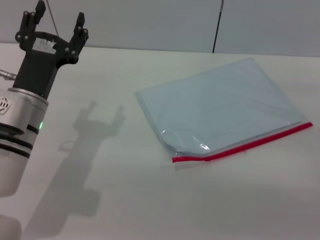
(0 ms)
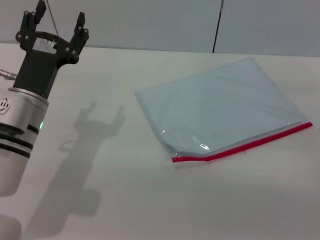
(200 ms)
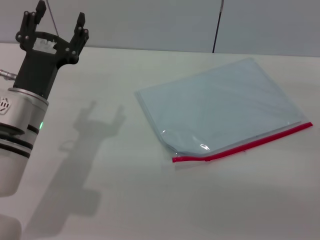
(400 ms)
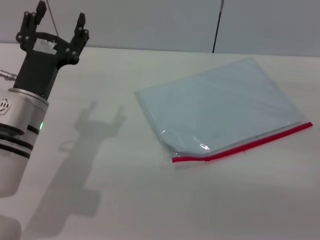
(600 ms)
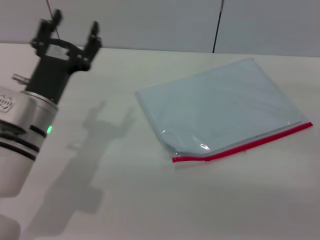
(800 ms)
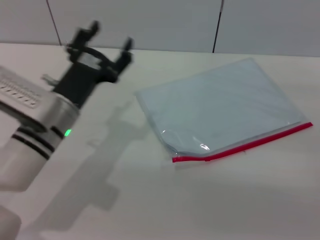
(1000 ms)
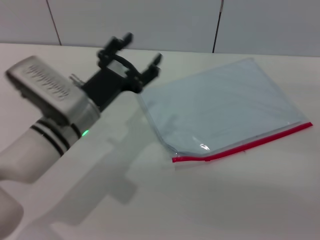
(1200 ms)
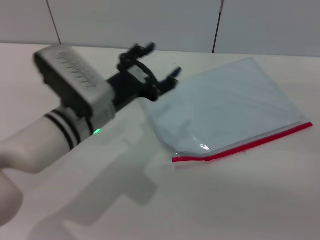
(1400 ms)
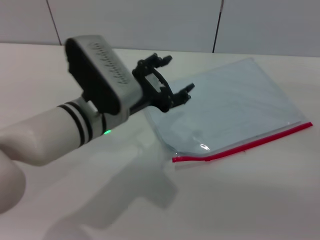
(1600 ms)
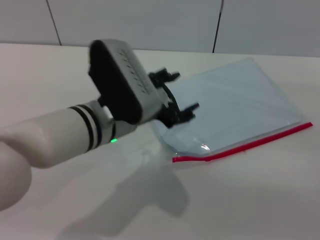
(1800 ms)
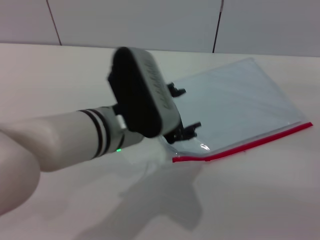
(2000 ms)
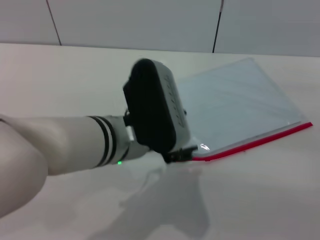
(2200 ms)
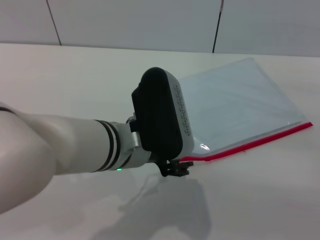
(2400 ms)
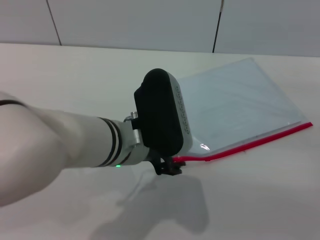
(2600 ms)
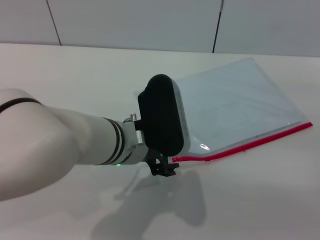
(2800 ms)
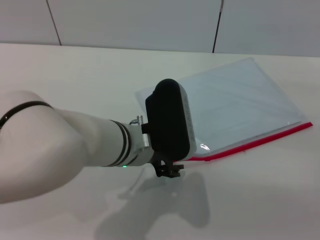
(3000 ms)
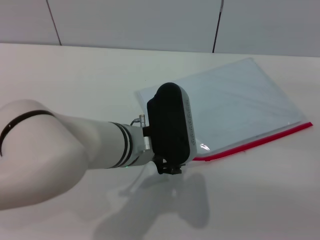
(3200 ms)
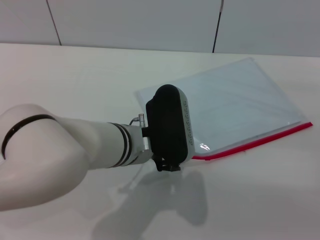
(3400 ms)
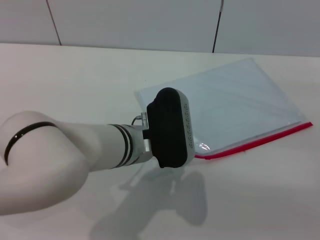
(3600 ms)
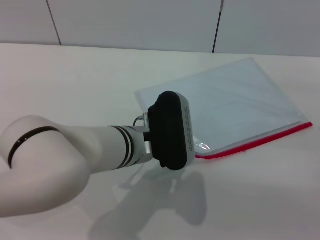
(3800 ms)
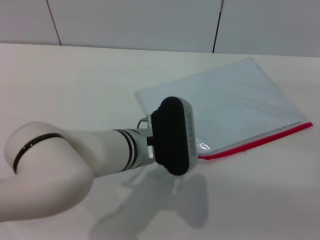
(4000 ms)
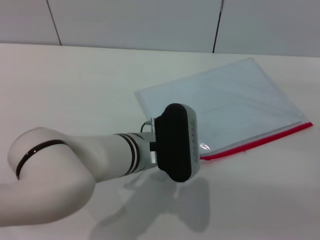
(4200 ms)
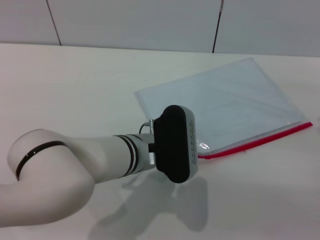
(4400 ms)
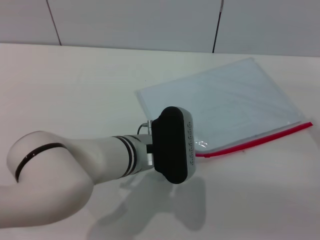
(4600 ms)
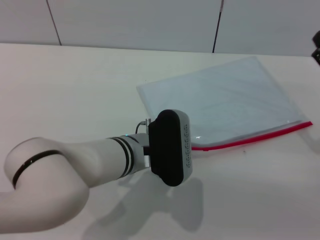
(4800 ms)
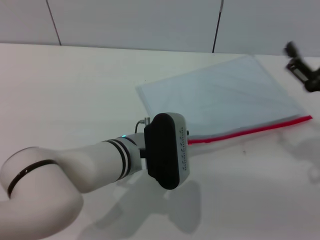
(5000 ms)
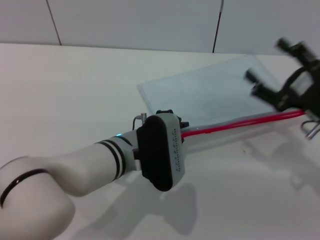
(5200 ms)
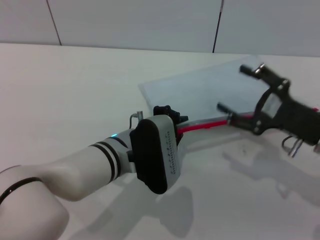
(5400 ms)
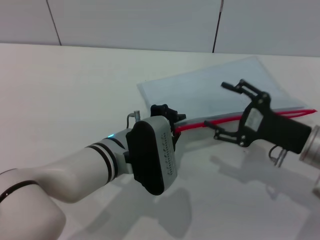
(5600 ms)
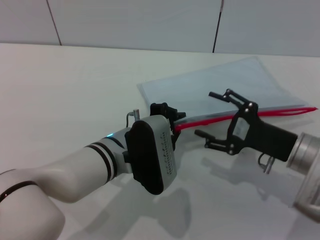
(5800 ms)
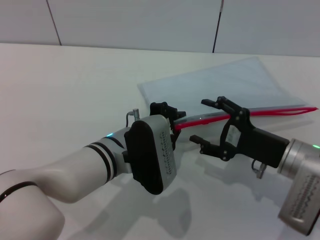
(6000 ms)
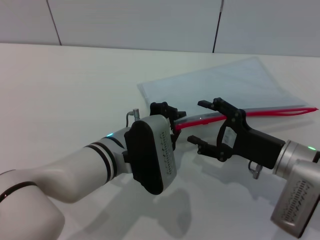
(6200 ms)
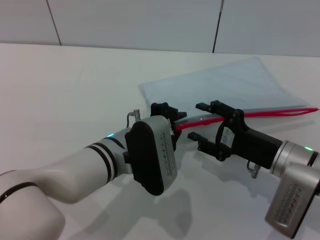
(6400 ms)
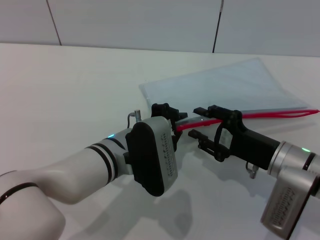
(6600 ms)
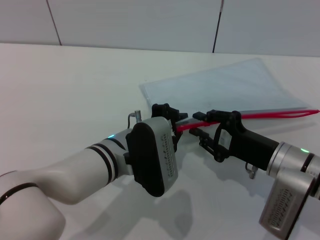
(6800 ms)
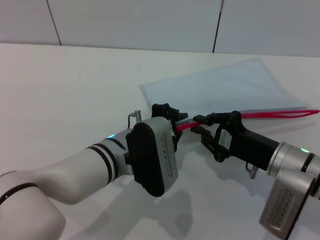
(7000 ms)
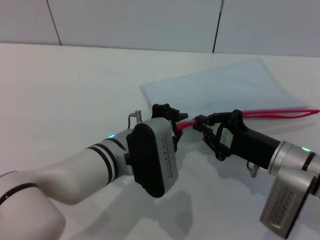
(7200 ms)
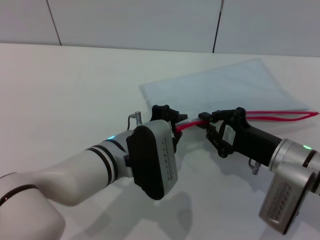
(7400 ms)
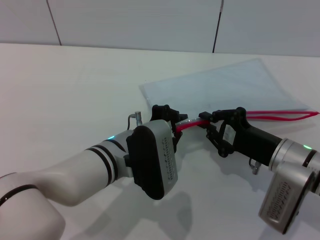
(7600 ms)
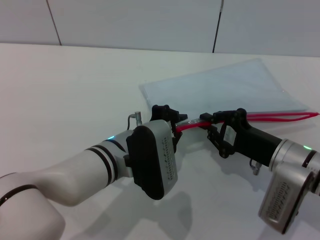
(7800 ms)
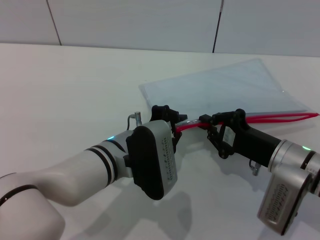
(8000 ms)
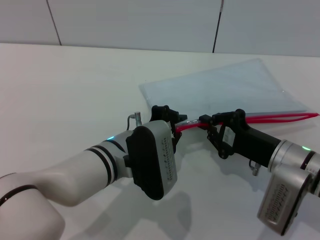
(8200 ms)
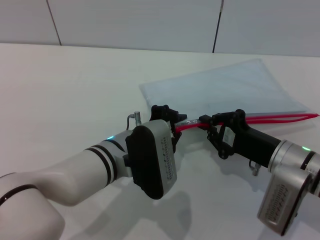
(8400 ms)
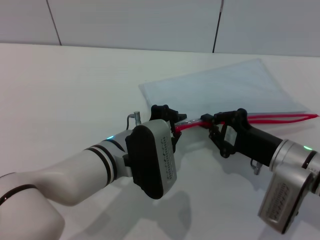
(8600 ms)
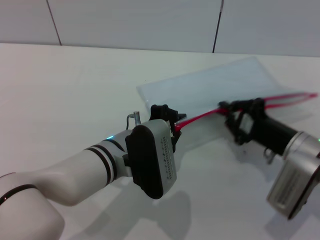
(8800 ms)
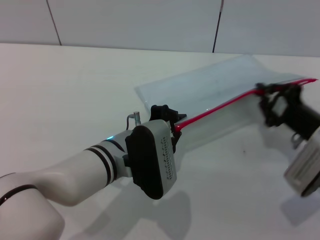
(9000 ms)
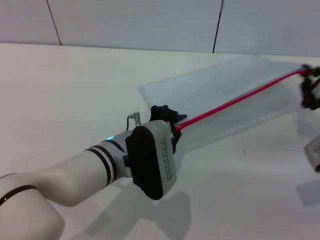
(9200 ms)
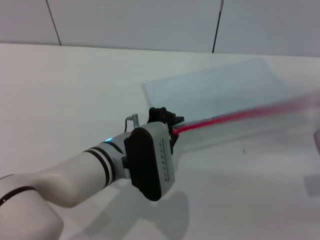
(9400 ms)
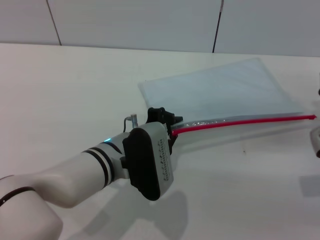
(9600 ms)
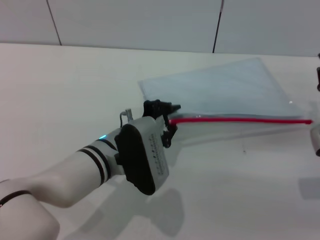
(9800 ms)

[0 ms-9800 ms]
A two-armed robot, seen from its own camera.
Step, 0 ms to 5400 ms: Pick up the transparent plastic bag with the left gripper.
Step, 5600 ms to 9800 ms: Pulling up the zipper on the transparent plastic bag with the right gripper to close it.
0 ms to 1400 ms: The left gripper moves to the right, some 5 cm.
1400 ms to 2800 ms: The left gripper shifts approximately 5 cm to the right.
2800 ms to 4200 ms: The grippers stay close to where they were, moving slightly.
4200 ms to 5600 ms: The left gripper closes its fingers. Meanwhile the right gripper moves to the left, approximately 10 cm.
5600 ms to 7000 ms: The right gripper ends up about 5 cm from where it was, and closes its fingers.
7000 ms to 8400 ms: The right gripper closes up.
8400 ms to 9800 ms: The right gripper travels to the right by some 10 cm.

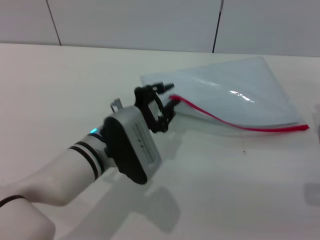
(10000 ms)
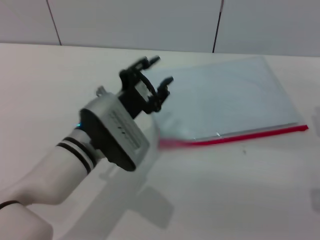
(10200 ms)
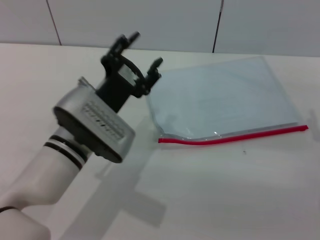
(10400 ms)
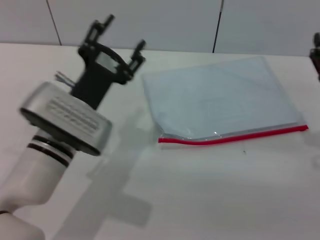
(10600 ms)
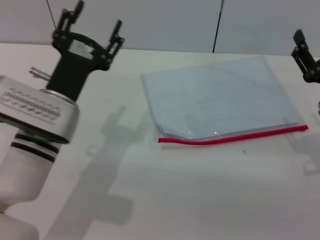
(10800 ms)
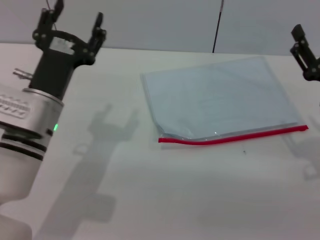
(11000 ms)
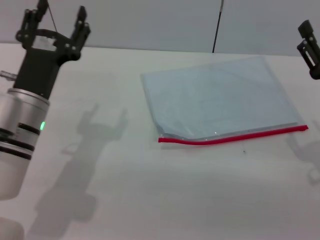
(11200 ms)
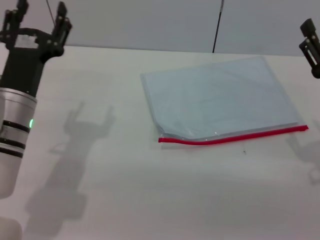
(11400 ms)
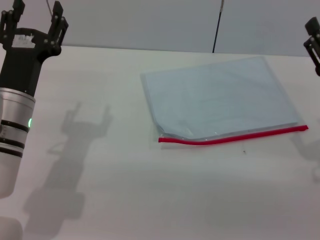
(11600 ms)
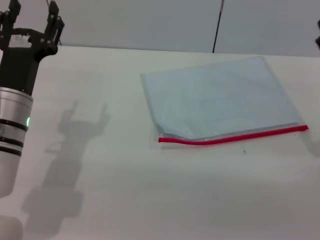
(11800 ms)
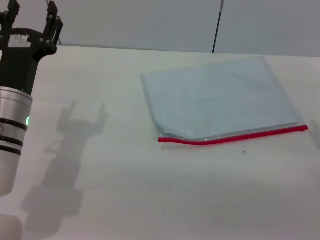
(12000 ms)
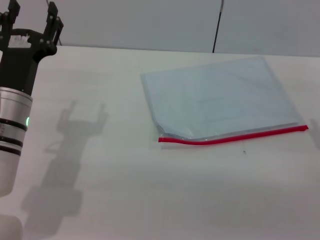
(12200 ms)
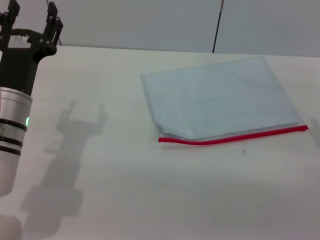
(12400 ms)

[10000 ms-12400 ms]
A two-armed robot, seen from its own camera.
Step, 10000 ms to 10800 ms: Place the transparent plastic bag.
10000 ms to 11200 ms: The right gripper opens its fingers; the left gripper goes some 10 cm to the left, and opens its fingers.
11200 ms to 12400 ms: The grippers make only small movements.

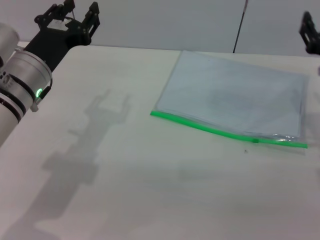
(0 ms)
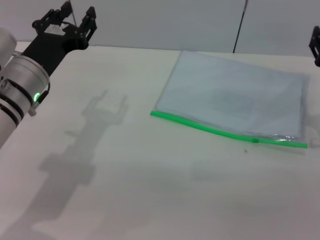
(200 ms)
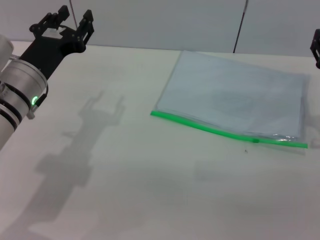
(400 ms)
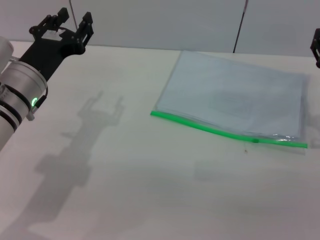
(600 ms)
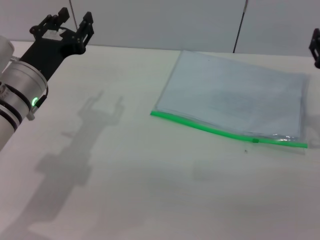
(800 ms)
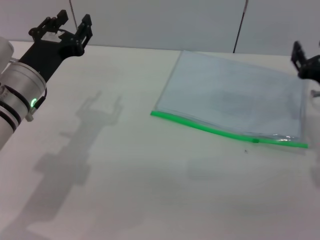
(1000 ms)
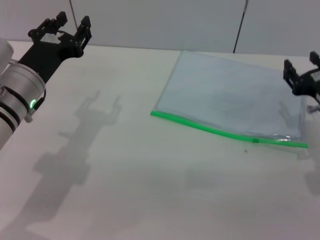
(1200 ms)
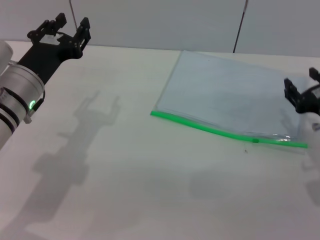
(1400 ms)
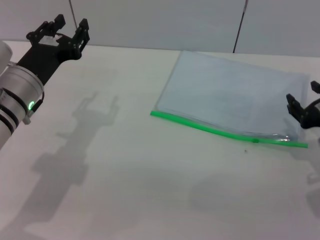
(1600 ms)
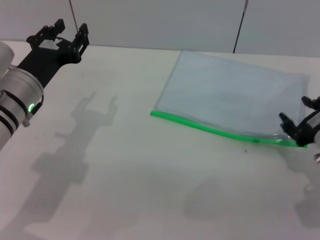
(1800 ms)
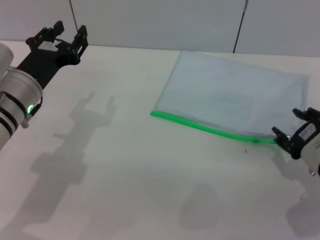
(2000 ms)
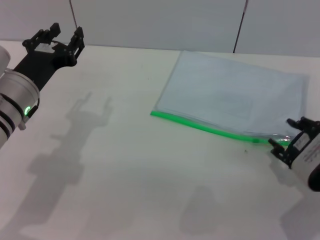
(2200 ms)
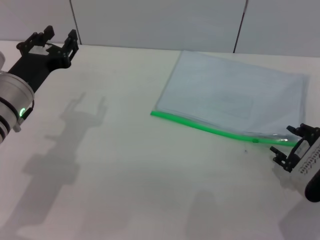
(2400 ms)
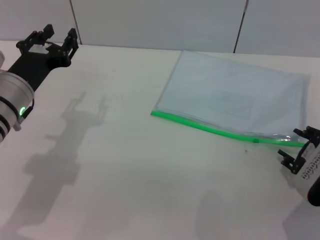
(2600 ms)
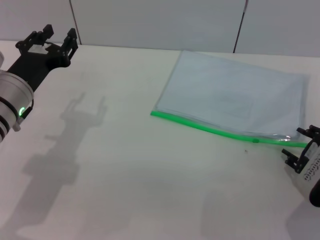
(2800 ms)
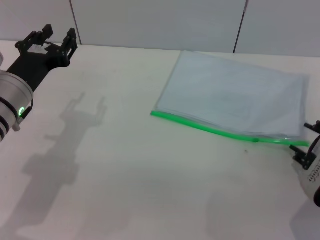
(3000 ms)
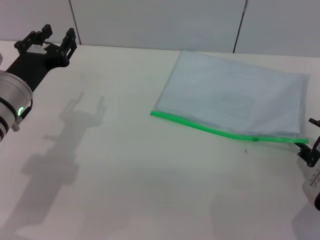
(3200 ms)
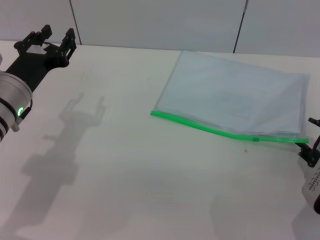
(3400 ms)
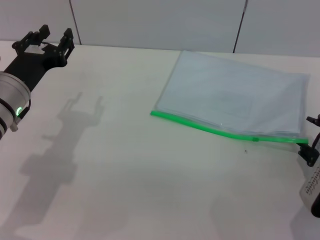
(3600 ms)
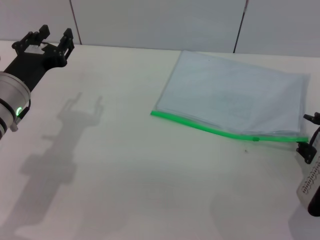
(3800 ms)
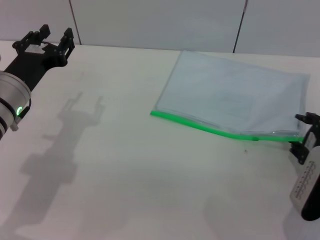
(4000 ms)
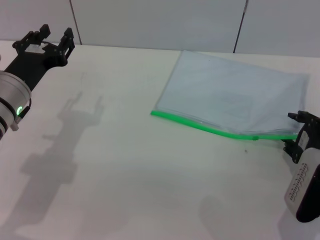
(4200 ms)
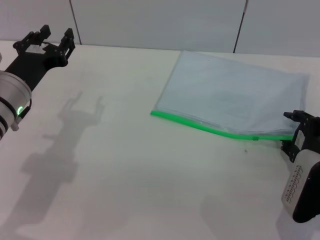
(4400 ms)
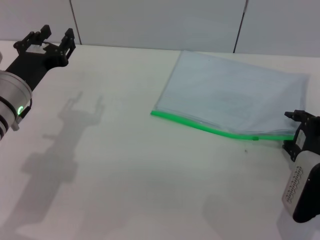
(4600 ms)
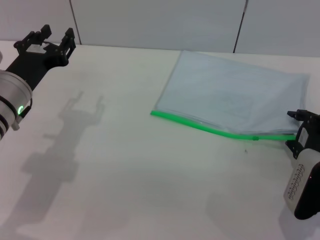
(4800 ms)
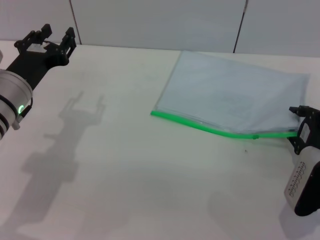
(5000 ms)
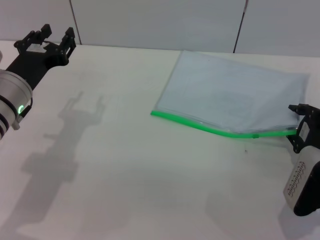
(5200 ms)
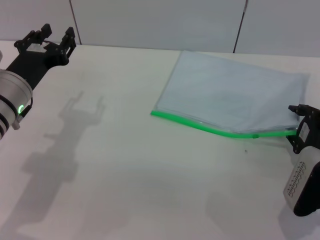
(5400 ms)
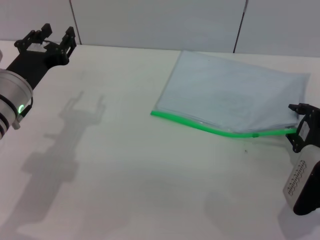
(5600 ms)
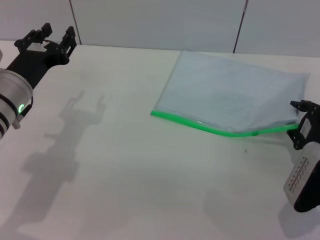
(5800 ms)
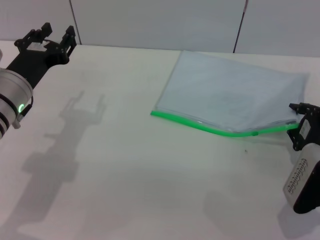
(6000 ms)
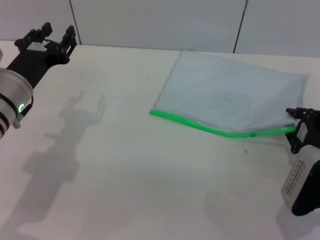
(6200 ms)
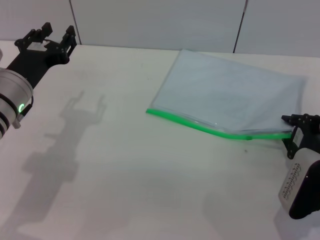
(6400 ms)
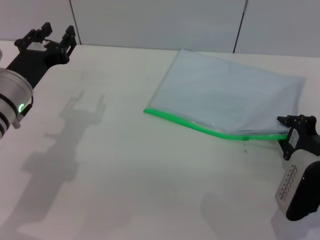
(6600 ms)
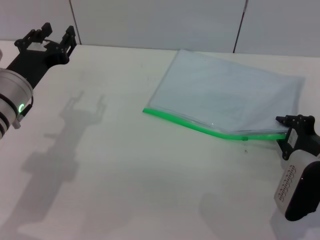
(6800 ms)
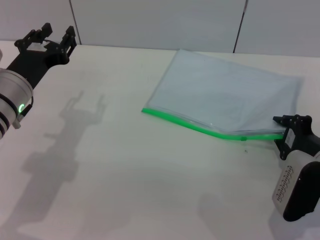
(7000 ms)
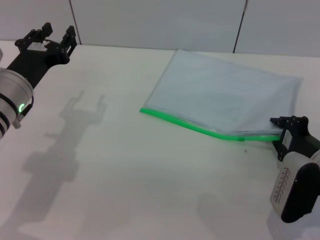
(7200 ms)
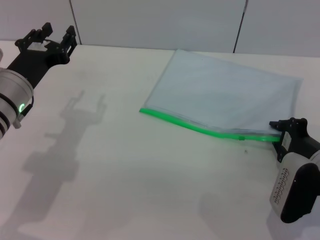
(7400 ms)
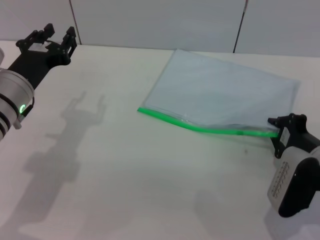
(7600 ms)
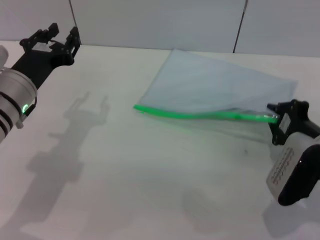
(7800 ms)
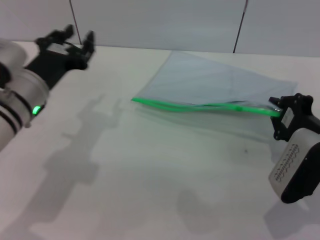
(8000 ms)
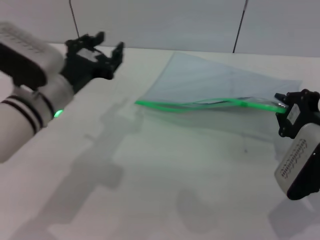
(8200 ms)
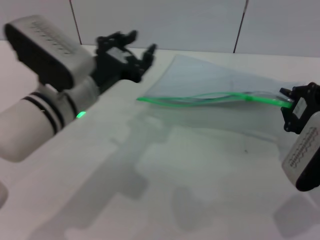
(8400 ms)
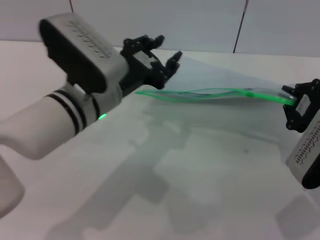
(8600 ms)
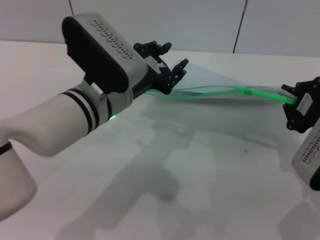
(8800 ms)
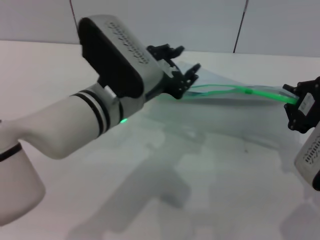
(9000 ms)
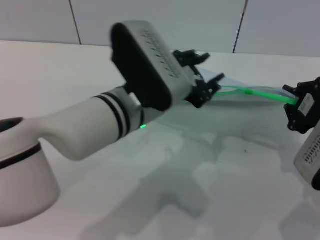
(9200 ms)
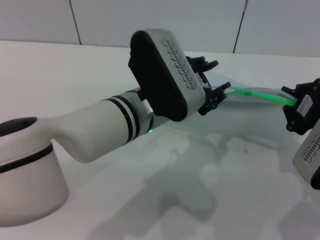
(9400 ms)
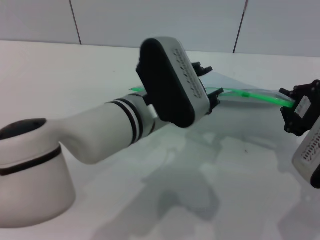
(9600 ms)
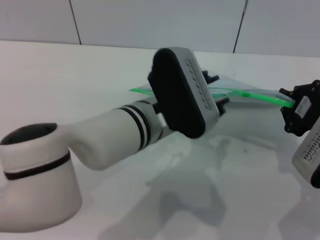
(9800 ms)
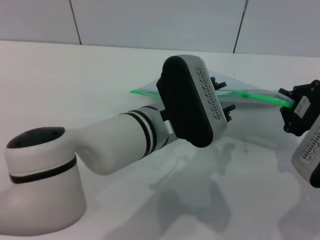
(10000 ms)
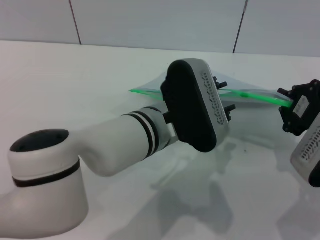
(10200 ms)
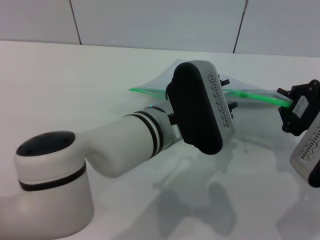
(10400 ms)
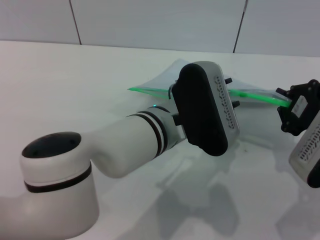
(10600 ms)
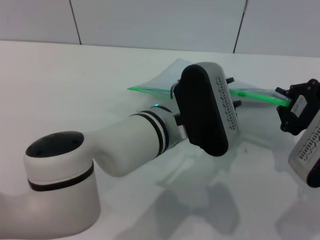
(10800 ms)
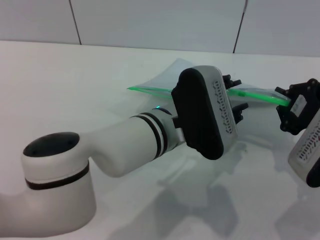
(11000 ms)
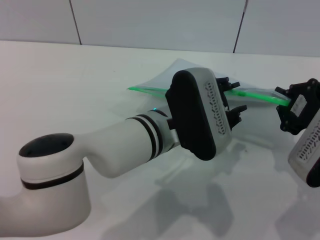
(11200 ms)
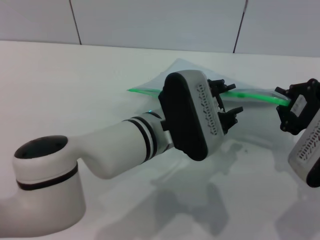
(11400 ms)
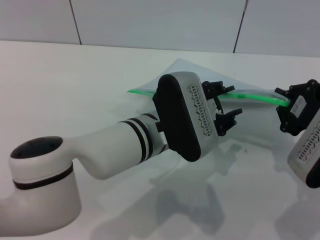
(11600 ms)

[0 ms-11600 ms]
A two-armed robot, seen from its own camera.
Step, 0 ms to 8000 ms: Pick up the transparent plastic bag with the right gripper.
1400 ms to 2800 ms: The right gripper moves approximately 5 cm.
4400 ms to 5800 ms: The grippers make only small movements.
5800 ms to 7200 ms: The right gripper closes.
7200 ms to 8800 ms: The right gripper goes roughly 10 cm upward; the left gripper moves to the right, approximately 15 cm.
8800 ms to 10200 ms: The left gripper moves to the right, about 5 cm.
10200 ms to 11600 ms: The grippers stay close to where they were, moving slightly.
